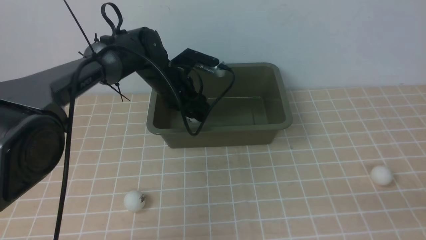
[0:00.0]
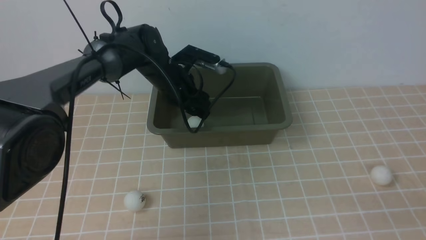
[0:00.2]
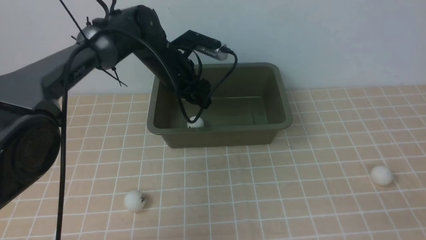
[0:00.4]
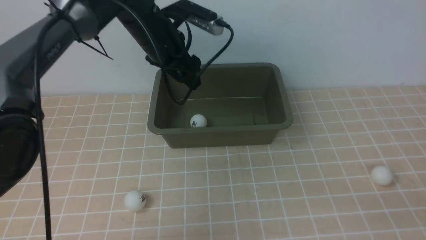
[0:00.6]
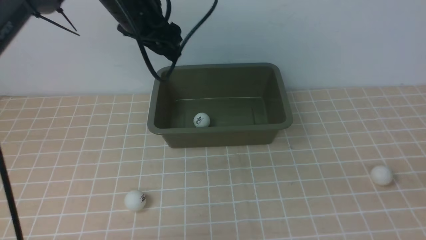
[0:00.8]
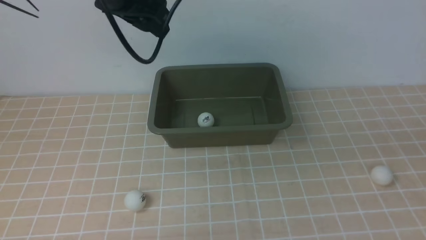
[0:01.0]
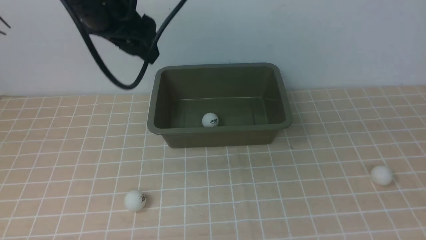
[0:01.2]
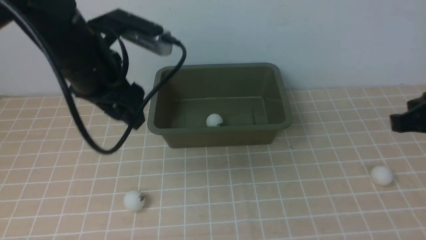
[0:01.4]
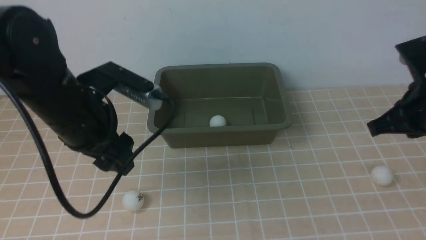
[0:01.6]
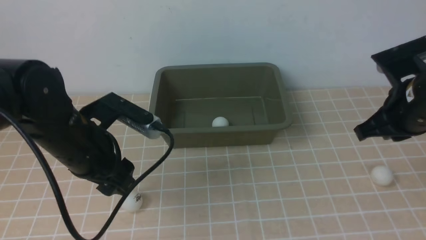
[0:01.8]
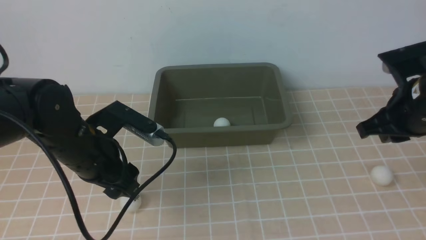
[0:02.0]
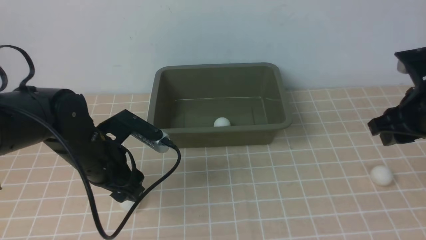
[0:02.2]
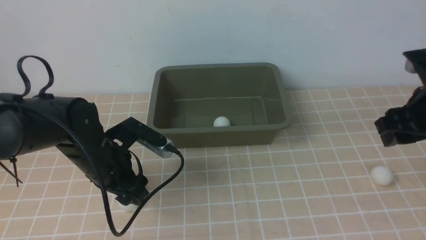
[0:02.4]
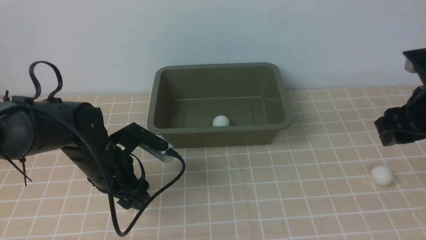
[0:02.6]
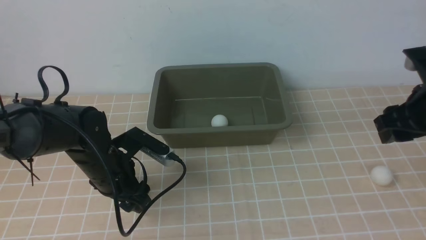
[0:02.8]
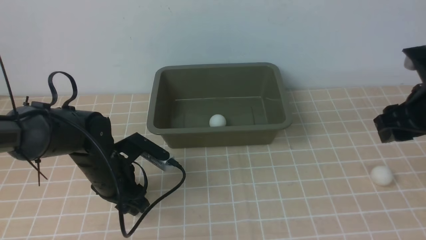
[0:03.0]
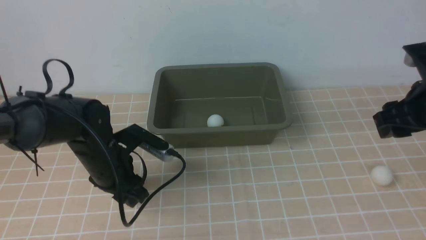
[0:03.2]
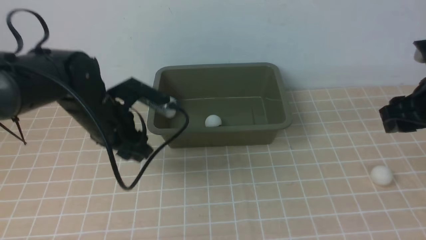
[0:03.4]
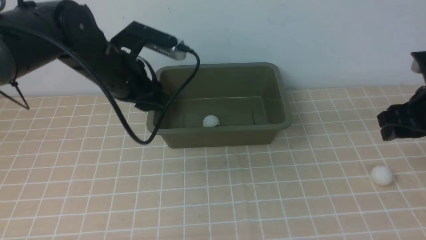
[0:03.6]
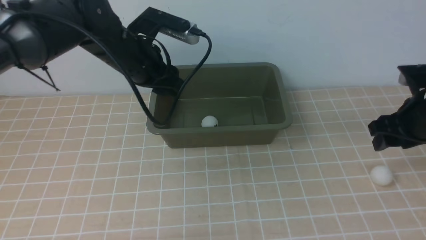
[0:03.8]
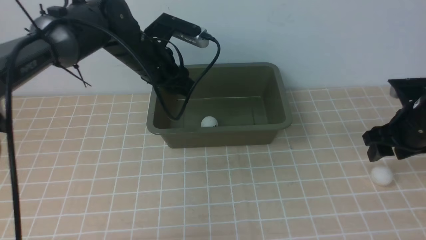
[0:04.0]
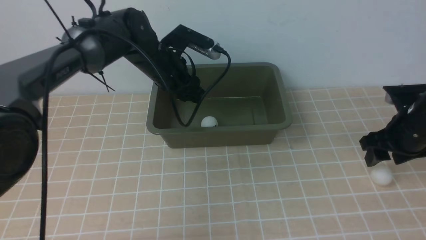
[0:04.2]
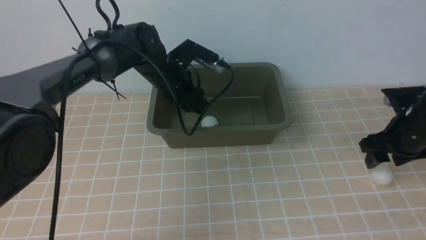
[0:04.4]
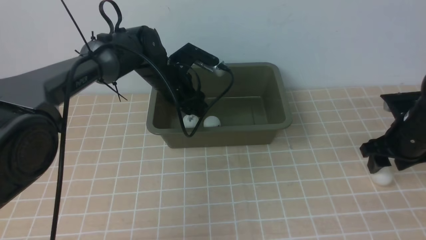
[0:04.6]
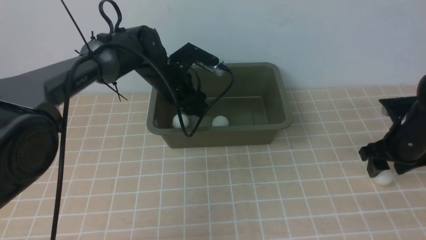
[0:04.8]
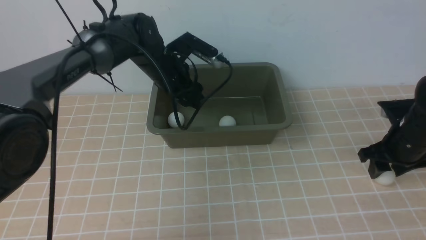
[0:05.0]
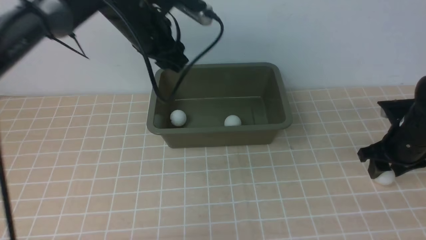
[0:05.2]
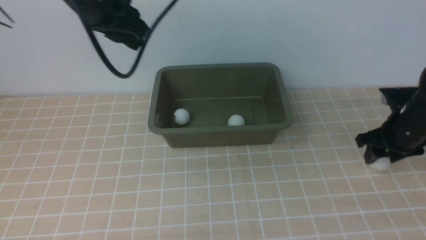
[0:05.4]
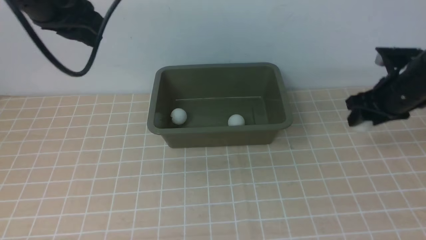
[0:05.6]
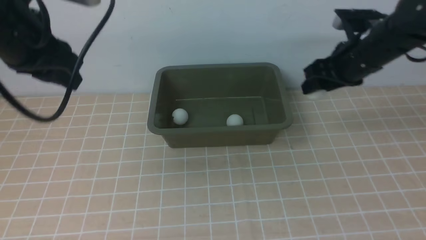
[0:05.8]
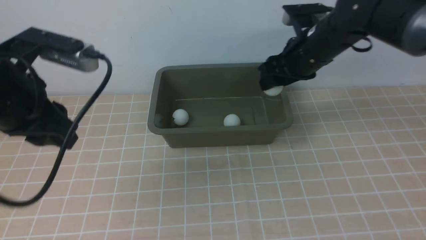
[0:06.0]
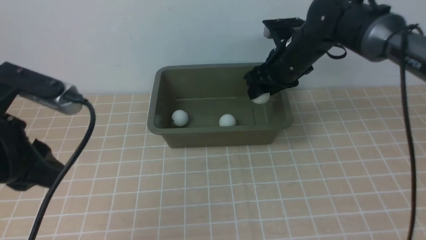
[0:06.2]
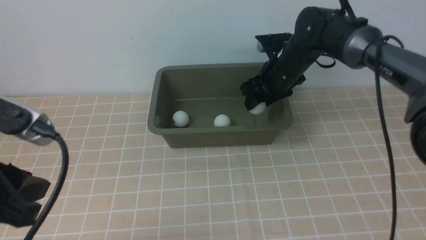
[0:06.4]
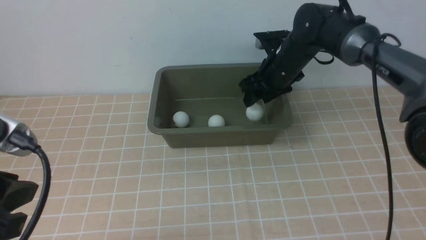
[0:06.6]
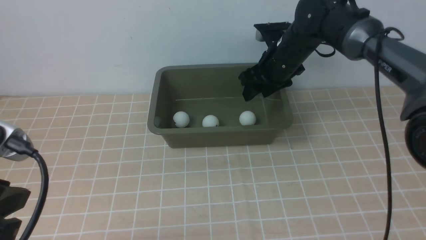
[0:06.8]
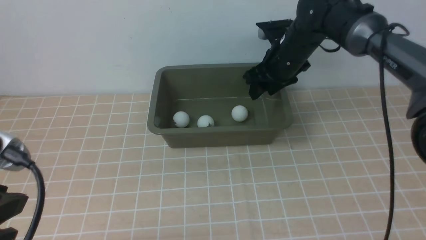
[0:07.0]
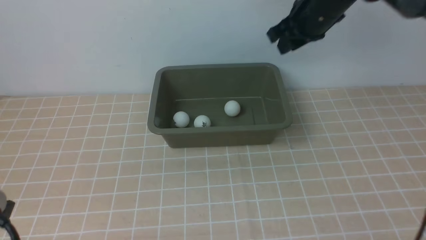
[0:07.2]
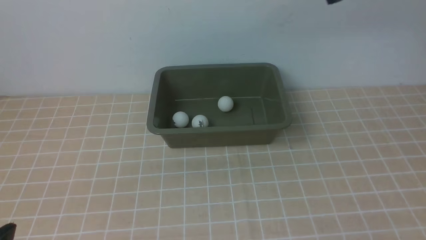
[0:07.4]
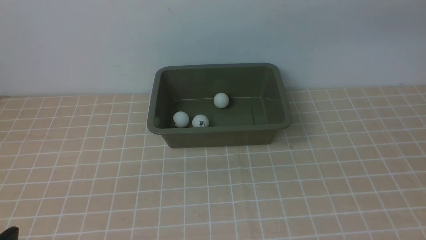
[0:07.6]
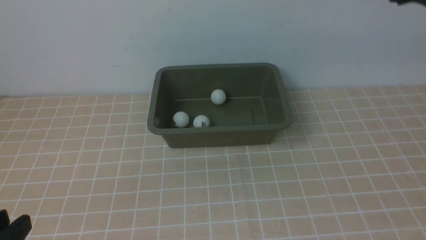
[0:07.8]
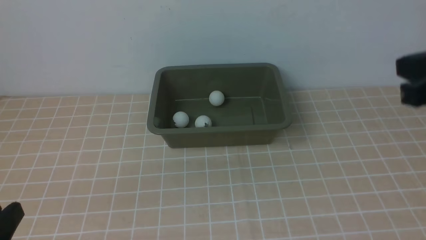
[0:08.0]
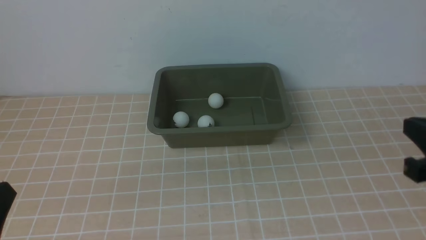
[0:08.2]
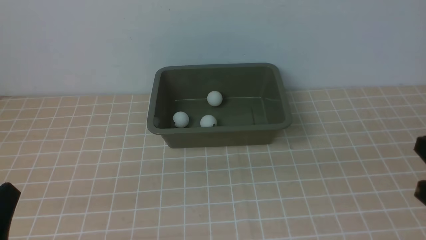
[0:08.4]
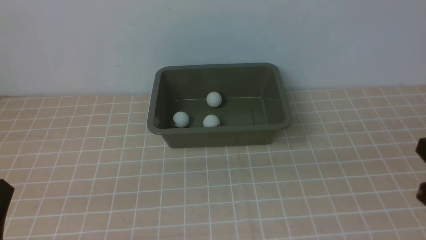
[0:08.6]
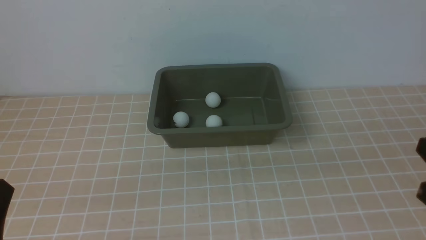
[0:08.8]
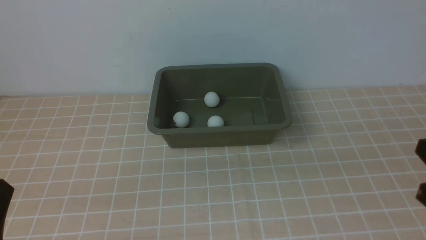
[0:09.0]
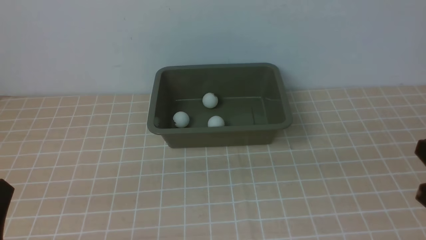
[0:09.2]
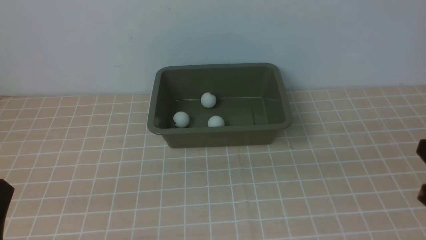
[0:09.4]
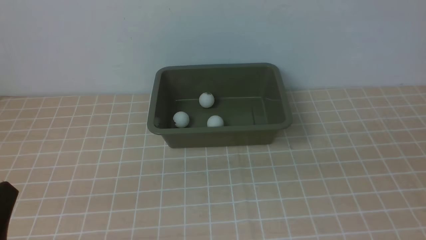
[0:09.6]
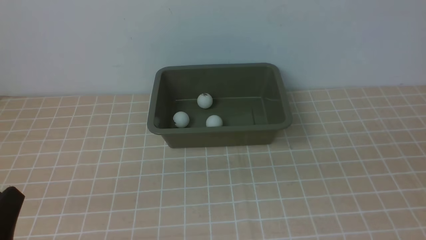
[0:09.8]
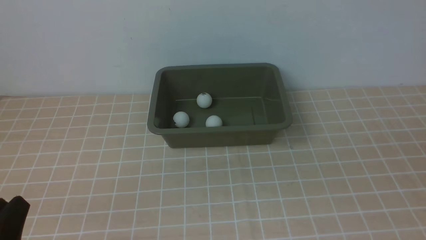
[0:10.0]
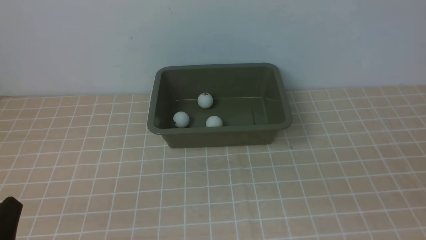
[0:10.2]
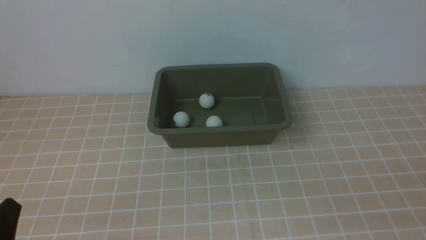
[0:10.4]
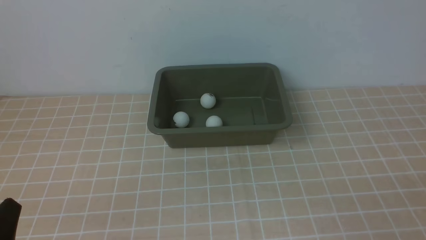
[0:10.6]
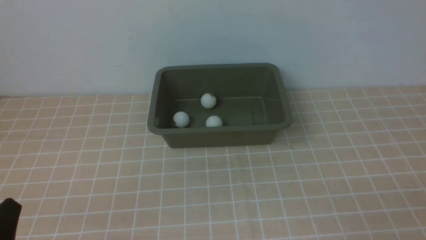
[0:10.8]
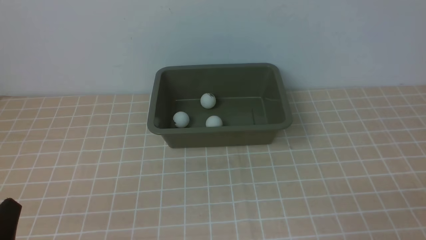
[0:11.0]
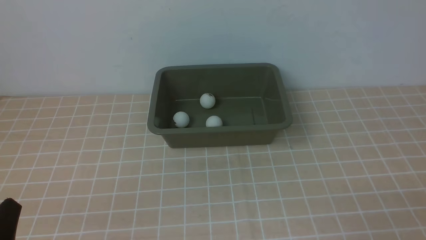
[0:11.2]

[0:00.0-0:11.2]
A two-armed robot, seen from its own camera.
Step, 0.6 to 3.4 s: use the left arm to clamp the table tennis ball closest to it.
Step, 3.6 to 5.0 s: use the left arm to put the table tennis ball into the box.
Step, 5.2 to 6.0 s: use the right arm to clamp the table tennis ball closest to it.
Step, 6.2 to 7.4 s: use the right arm to put the table tennis ball into the box.
0.0 to 1.6 s: The right gripper travels forward and upward by some 20 cm. Meanwhile the left gripper moves backward, upward and to the left, approximately 20 cm.
1.6 to 3.2 s: The left gripper heads downward, covering some 10 cm; the right gripper shifts by roughly 5 cm, and opens.
3.2 to 4.8 s: The right gripper heads downward, covering approximately 10 cm. The left gripper heads forward and to the right, covering approximately 15 cm.
4.8 to 6.4 s: The left gripper moves backward and to the left, approximately 35 cm, and closes; the right gripper goes roughly 25 cm to the left and forward.
6.4 to 8.0 s: The right gripper heads backward, to the right and upward, covering some 30 cm, and closes up, while the left gripper shifts approximately 15 cm backward and downward.
8.0 to 9.6 s: The right gripper heads backward and downward, covering approximately 15 cm.

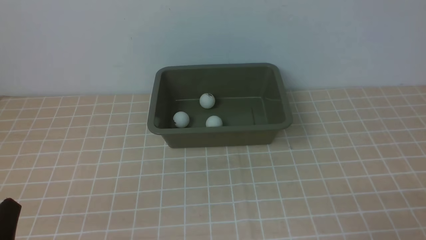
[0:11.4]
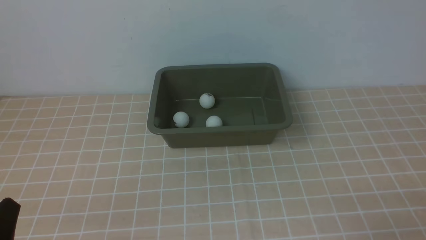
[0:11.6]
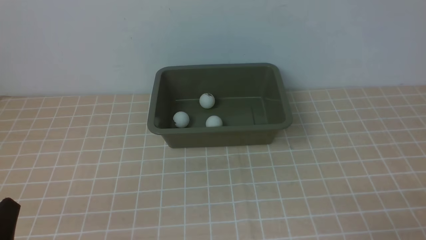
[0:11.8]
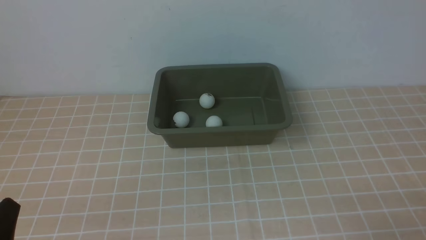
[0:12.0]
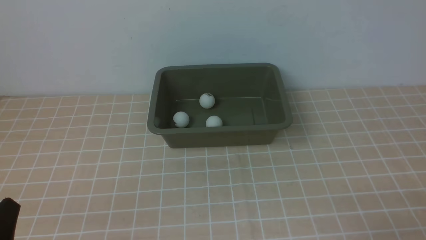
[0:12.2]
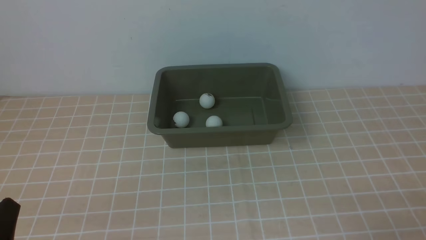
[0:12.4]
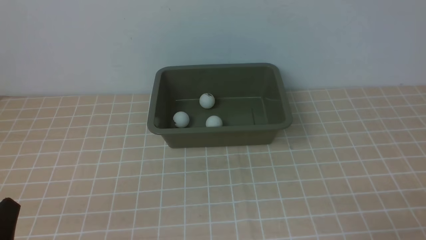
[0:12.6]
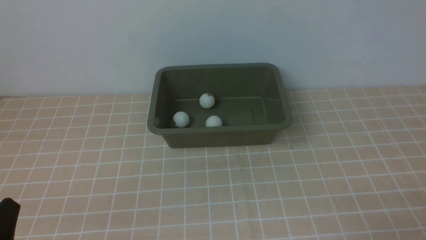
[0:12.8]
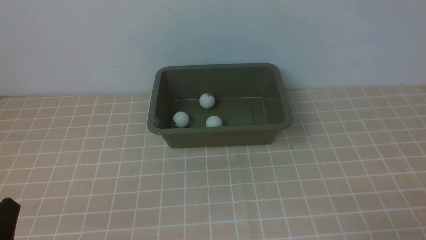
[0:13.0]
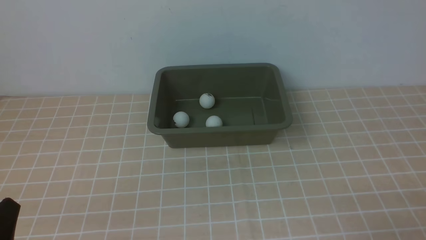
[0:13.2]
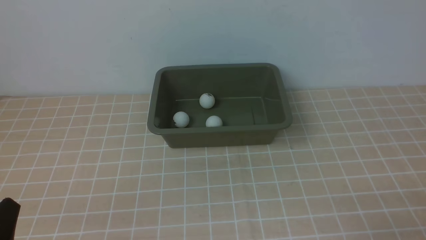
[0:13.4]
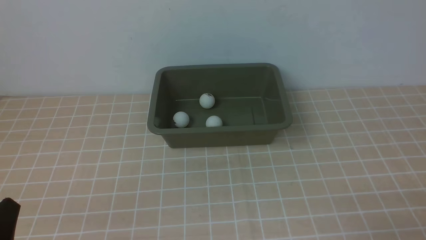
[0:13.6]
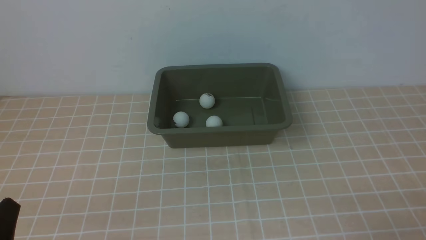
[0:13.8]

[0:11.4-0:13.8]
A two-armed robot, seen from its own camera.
11.4 to 13.8 s: Both grippers stay put.

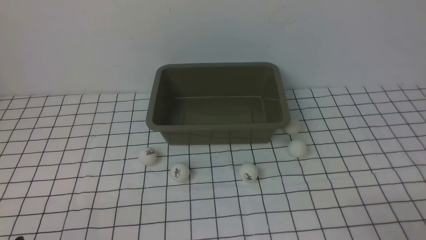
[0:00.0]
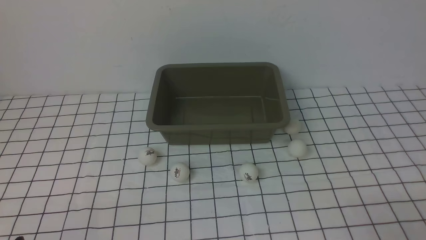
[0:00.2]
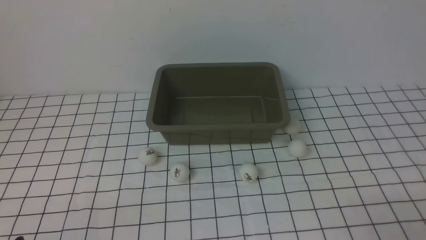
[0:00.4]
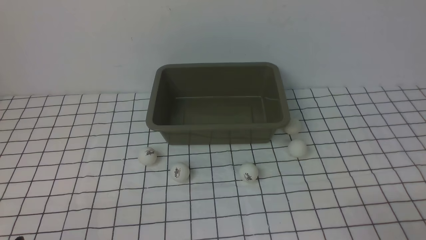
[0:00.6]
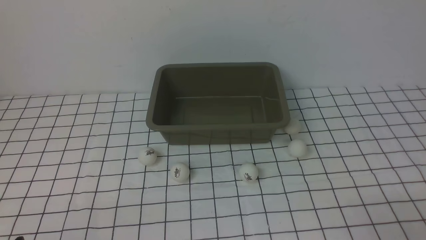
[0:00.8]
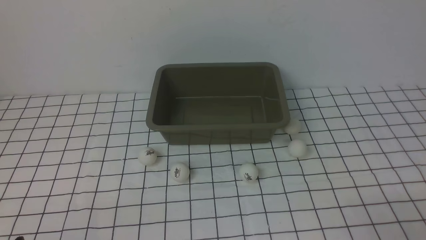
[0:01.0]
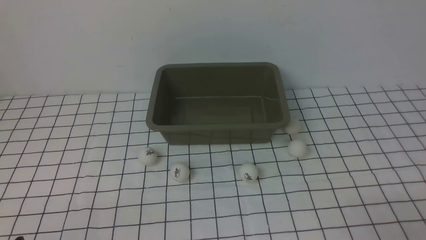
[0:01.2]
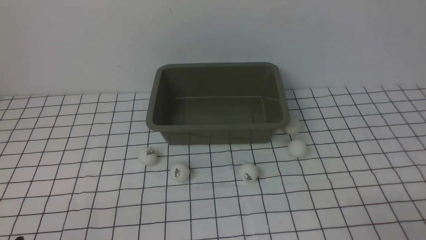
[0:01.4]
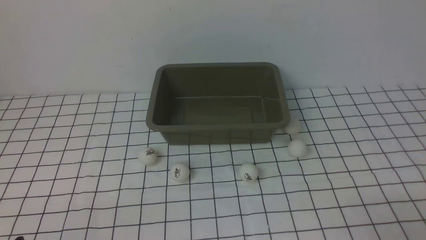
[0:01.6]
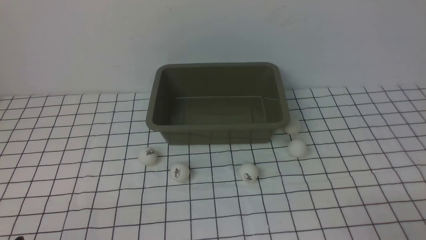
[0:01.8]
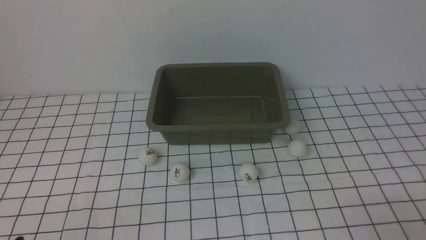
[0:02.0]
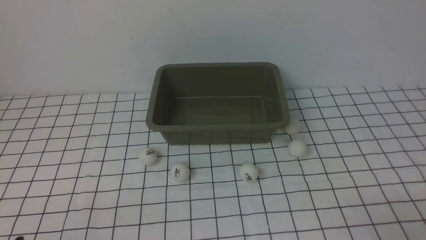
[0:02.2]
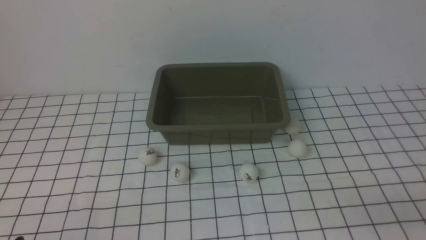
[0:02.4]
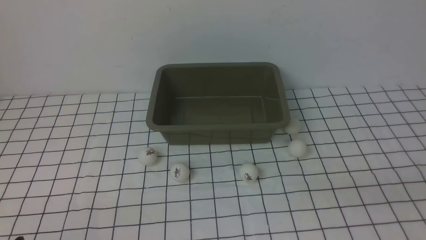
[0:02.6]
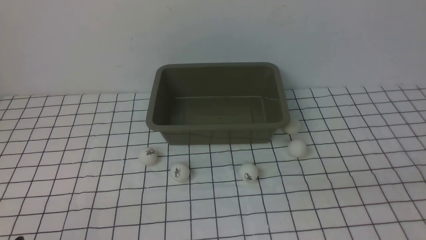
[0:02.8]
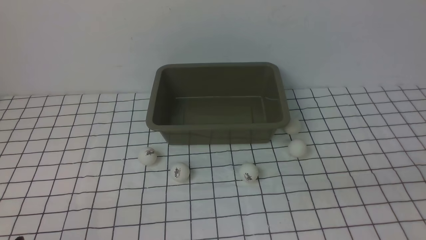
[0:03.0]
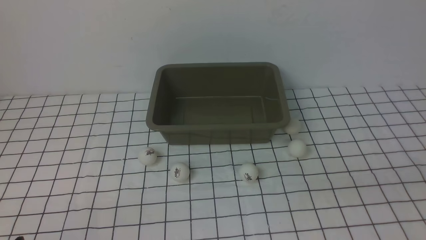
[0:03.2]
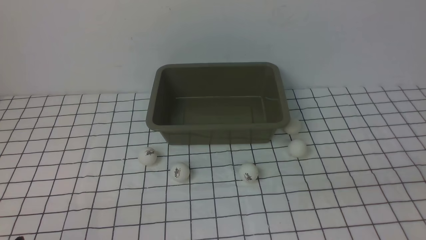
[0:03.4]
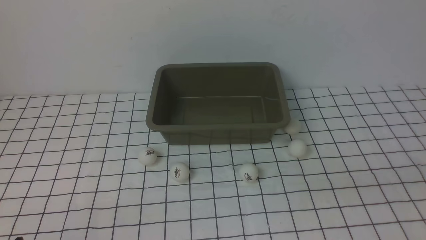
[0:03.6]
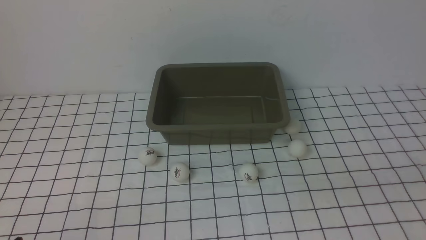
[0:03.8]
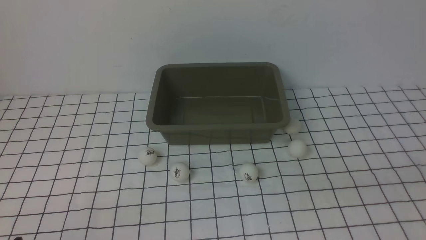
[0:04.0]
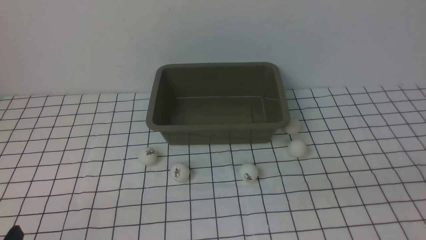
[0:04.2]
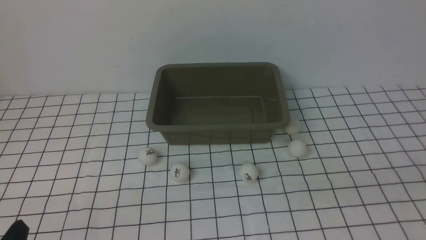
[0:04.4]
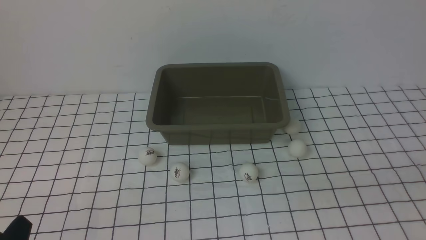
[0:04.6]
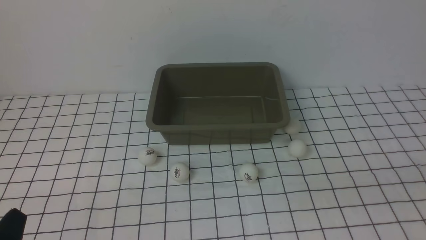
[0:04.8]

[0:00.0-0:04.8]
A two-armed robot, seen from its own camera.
0.0 to 1.6 s: Both grippers stay about where they are.
